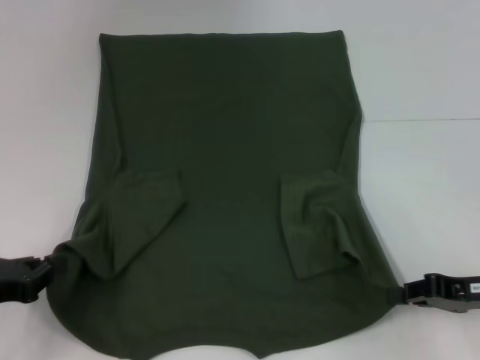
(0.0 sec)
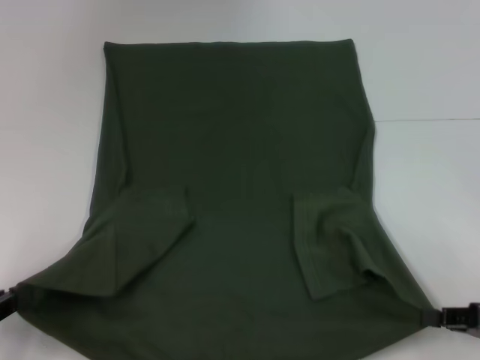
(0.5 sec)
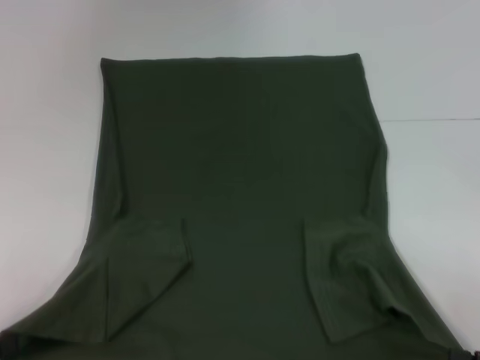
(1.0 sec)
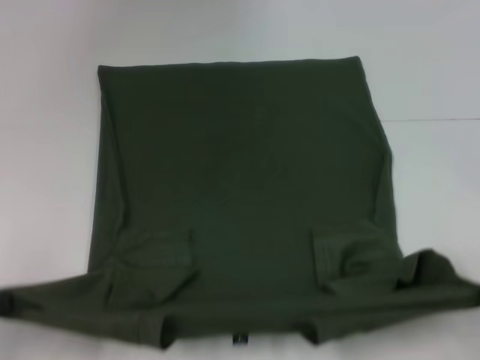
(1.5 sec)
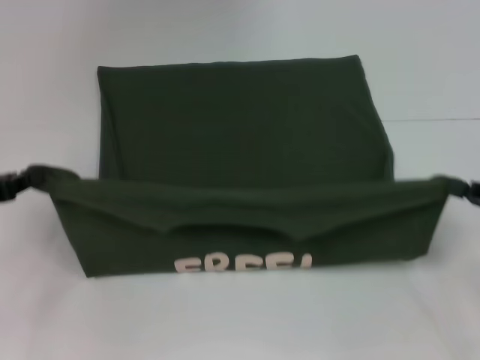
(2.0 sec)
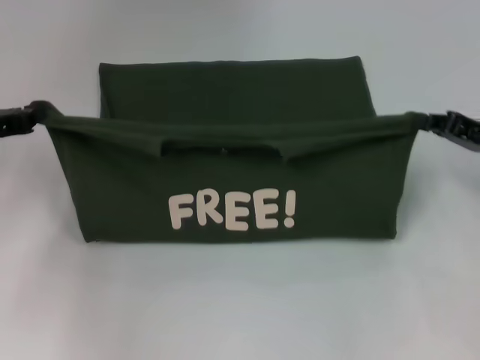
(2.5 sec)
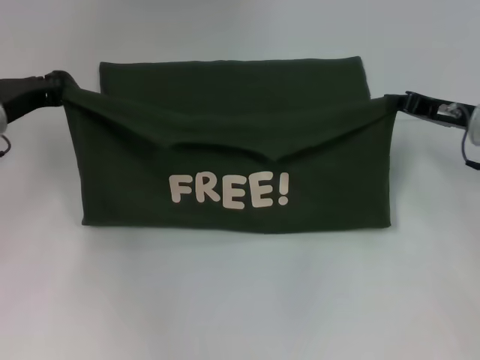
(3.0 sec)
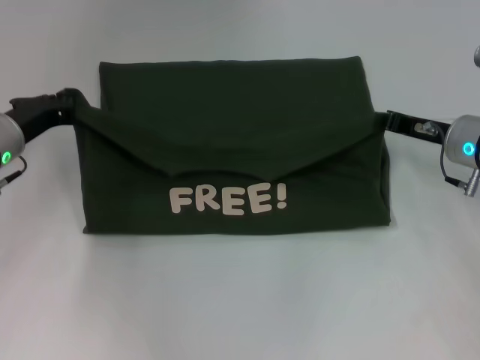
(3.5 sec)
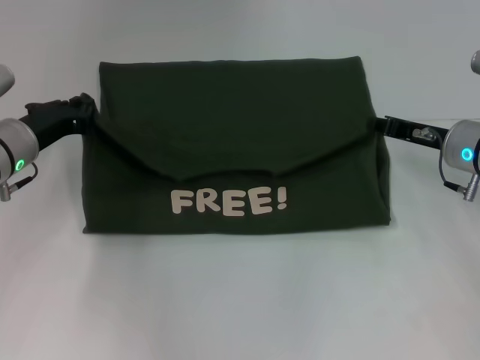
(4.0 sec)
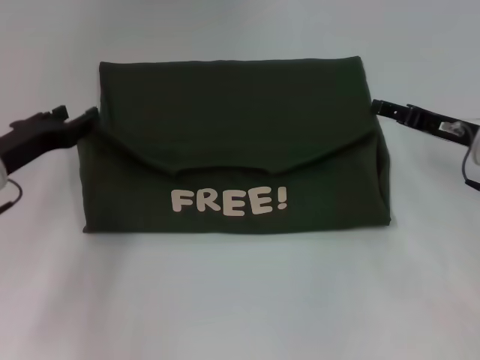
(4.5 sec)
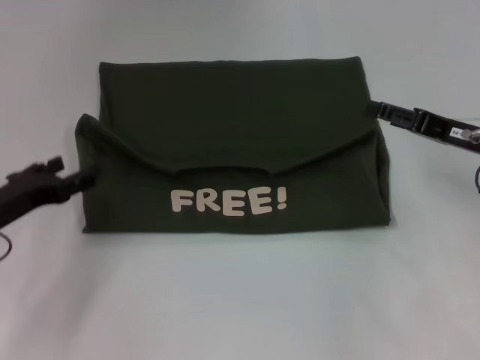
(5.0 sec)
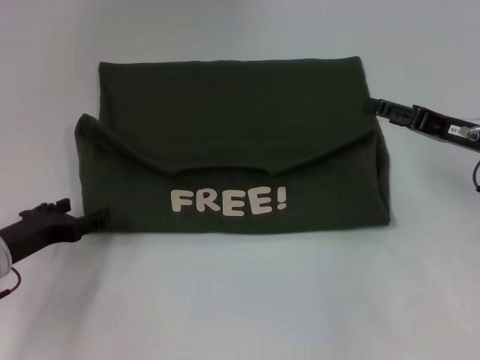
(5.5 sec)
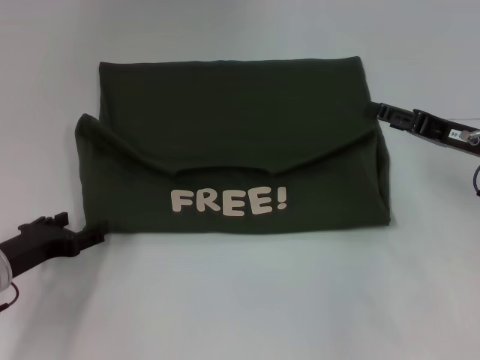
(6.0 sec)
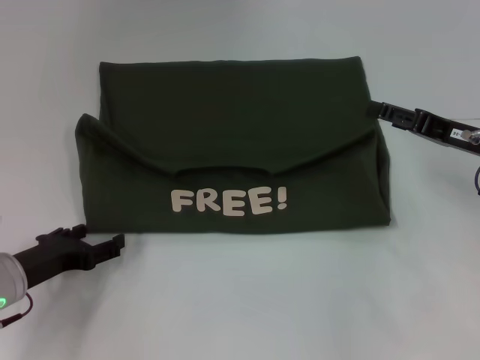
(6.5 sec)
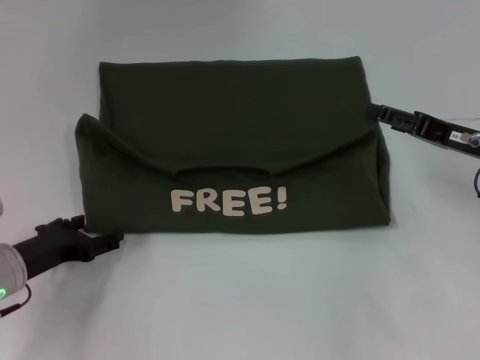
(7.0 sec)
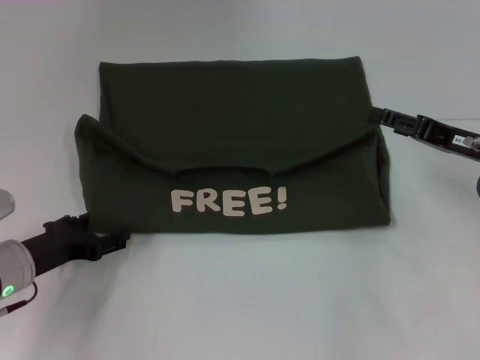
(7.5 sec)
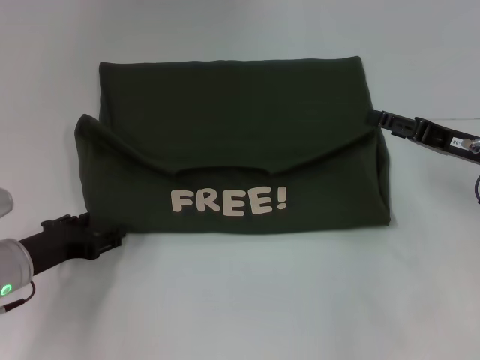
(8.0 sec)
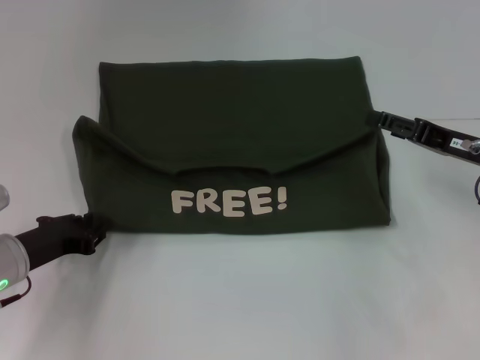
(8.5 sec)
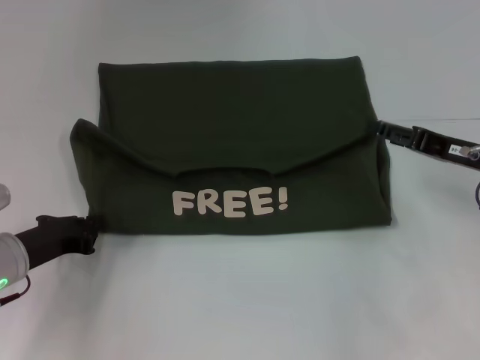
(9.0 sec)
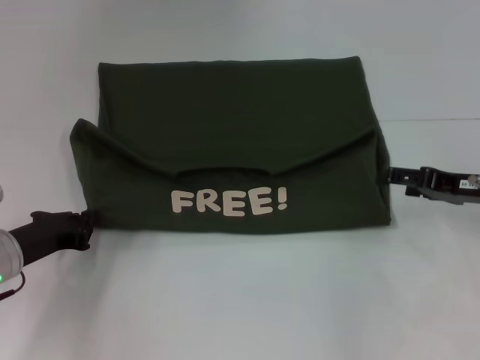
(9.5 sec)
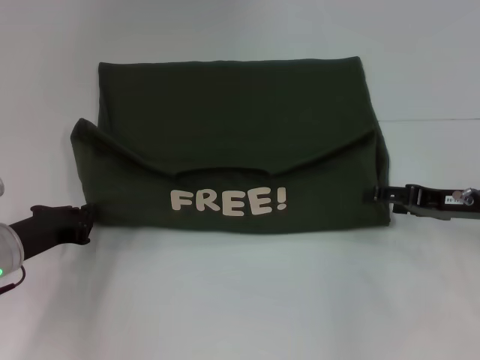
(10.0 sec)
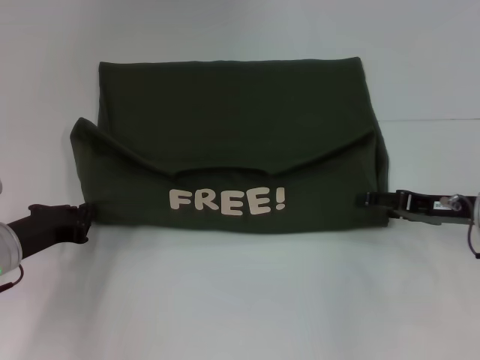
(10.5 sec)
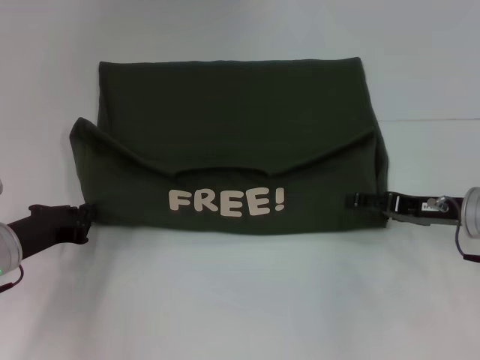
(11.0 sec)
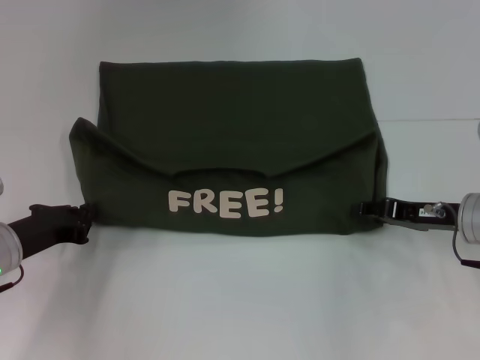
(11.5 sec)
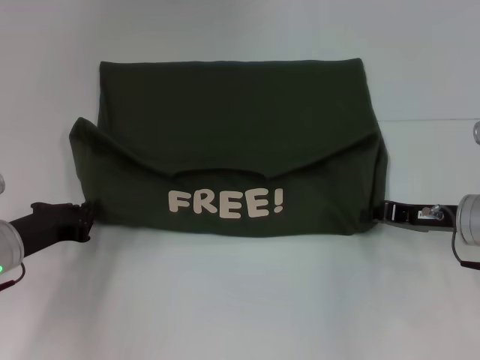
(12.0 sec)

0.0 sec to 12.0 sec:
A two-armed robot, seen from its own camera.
Step, 0.0 sec to 4.0 sec: Fold the clothes with your left hand.
Step, 0.0 sec to 4.0 sec: Fold the clothes with your right hand.
0.0 sec to 2.0 sec: The right gripper goes approximately 5 cm to the right, and goes backward and returns, roughly 10 cm each way. Meanwhile the left gripper travels forward by about 5 cm.
2.0 sec to 4.0 sec: The left gripper shifts some 15 cm forward and to the right. Meanwhile the right gripper is displaced forward and to the left by roughly 15 cm.
4.0 sec to 6.0 sec: The left gripper travels backward and downward by some 15 cm, and opens up; the right gripper moves approximately 5 cm, and opens.
6.0 sec to 8.0 sec: There are only small adjustments of the grippers.
8.0 sec to 10.0 sec: The left gripper closes up.
10.0 sec to 12.0 sec: The right gripper closes.

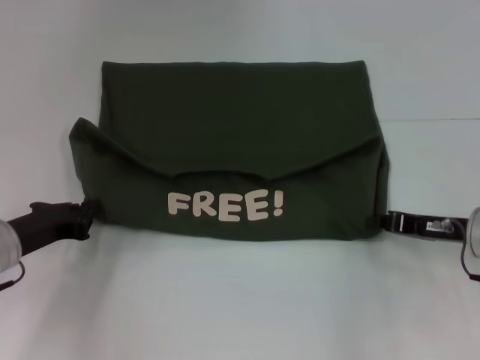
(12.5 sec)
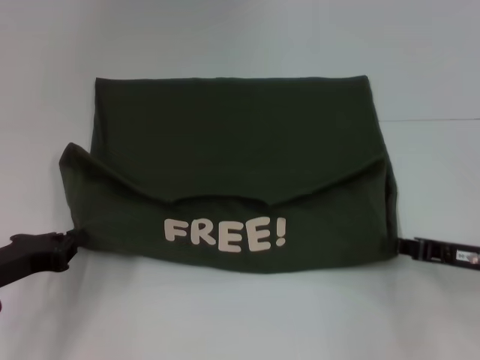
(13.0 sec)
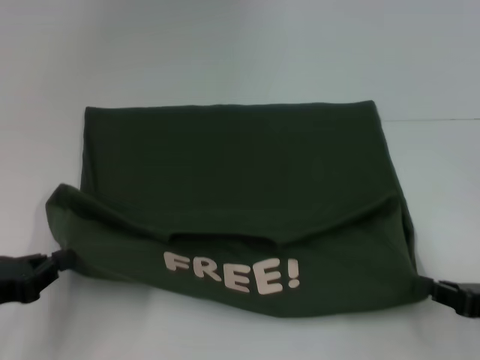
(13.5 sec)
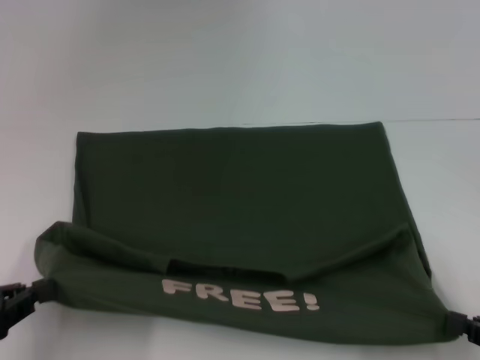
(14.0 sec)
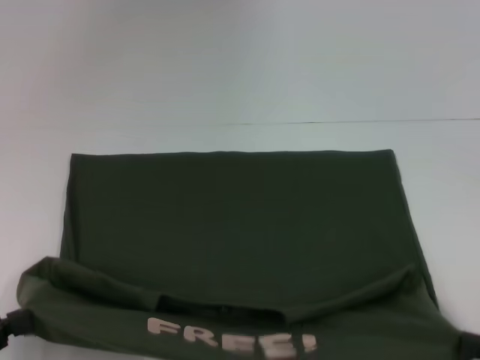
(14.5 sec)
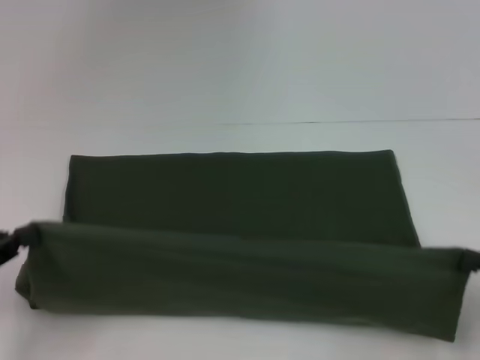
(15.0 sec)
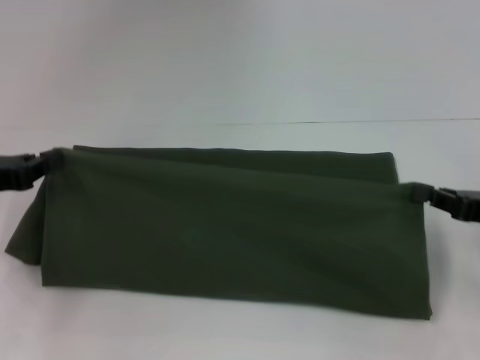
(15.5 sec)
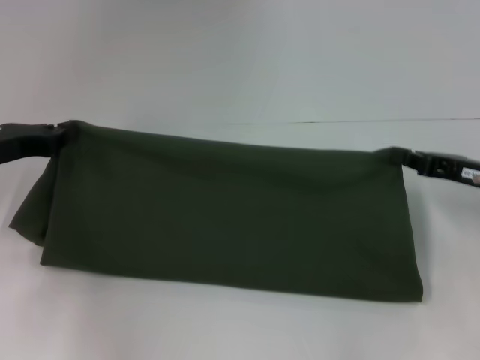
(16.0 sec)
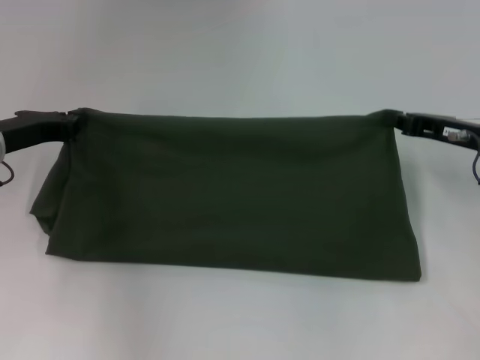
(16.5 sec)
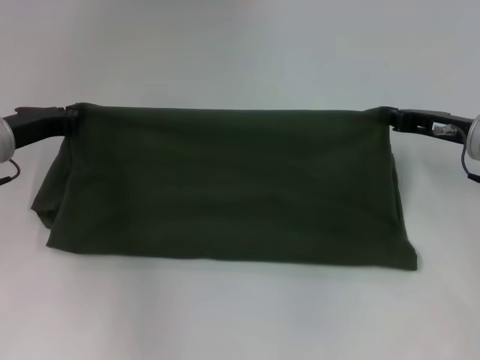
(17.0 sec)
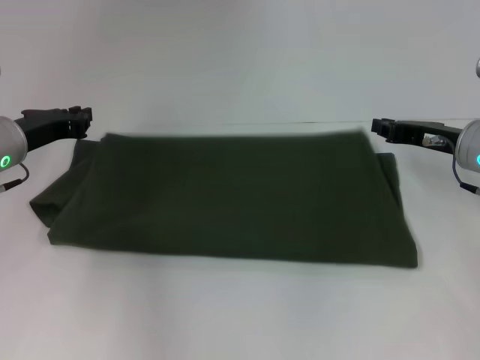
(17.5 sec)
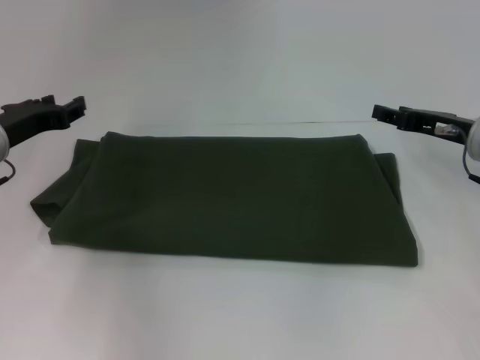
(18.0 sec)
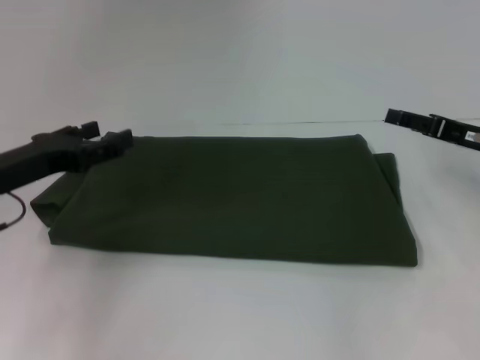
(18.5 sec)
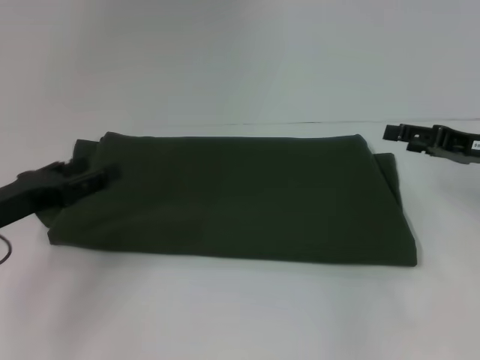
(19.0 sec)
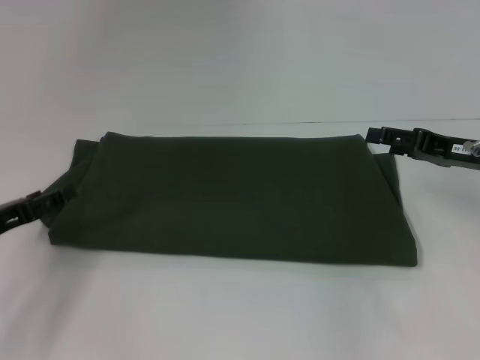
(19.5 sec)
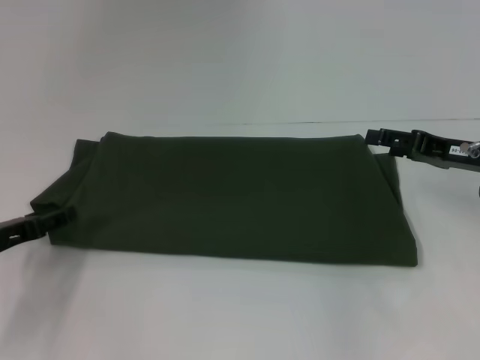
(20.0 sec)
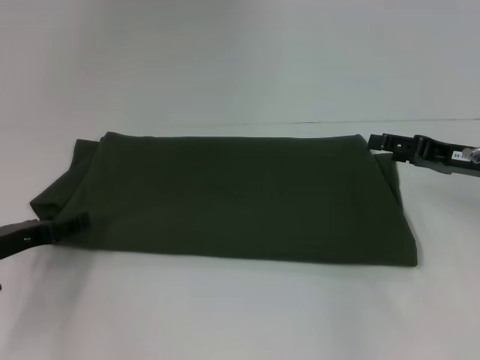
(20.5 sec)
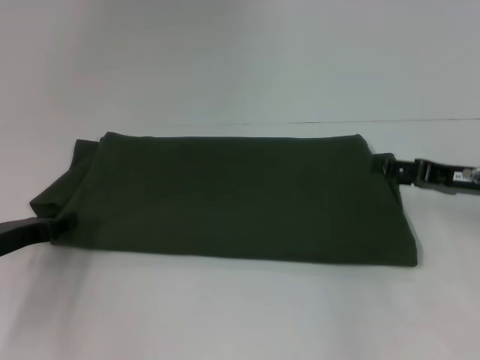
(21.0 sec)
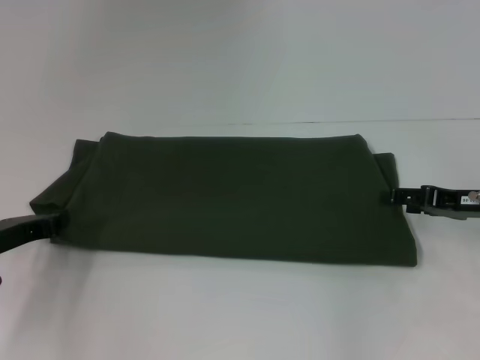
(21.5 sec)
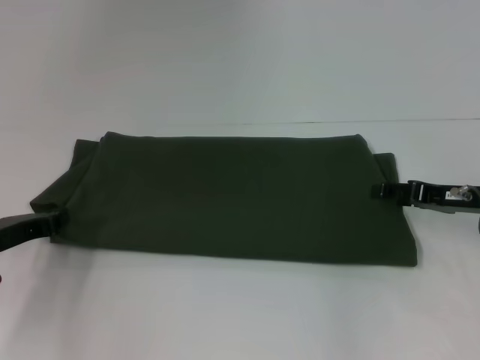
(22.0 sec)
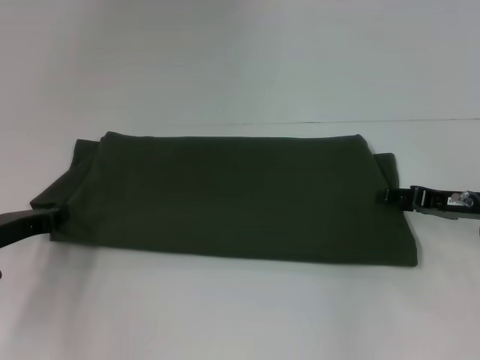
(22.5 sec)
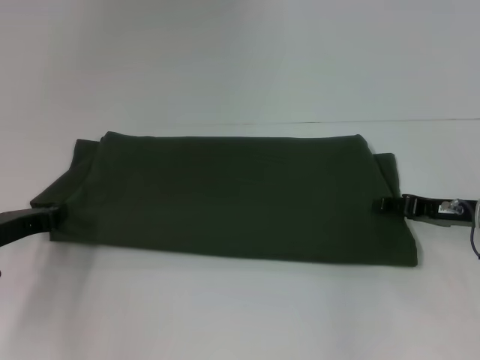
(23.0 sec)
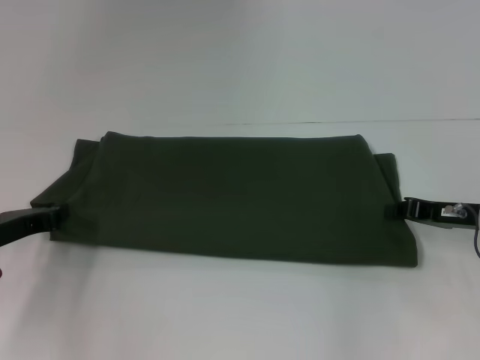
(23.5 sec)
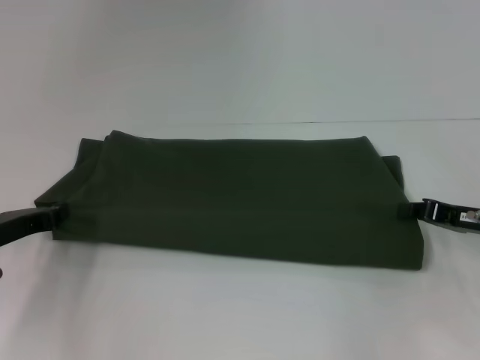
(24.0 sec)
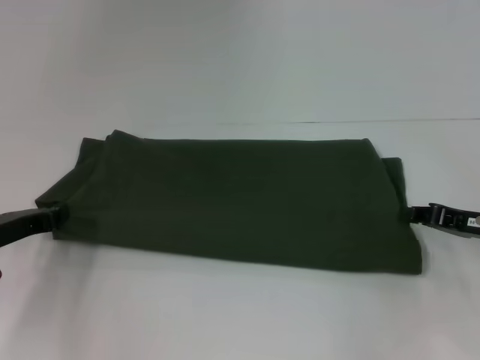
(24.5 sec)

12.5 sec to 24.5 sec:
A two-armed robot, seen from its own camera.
Step, 14.0 sec to 17.5 sec: Fold the clothes with your right hand.
12.5 sec to 14.5 sec: The right gripper is displaced backward and to the right by some 20 cm. Meanwhile the left gripper travels backward and to the left by some 20 cm.
14.5 sec to 16.5 sec: The two grippers go about 25 cm forward.
16.5 sec to 18.5 sec: The left gripper is displaced backward by some 5 cm, and opens. The right gripper opens up.
18.5 sec to 20.5 sec: The left gripper moves downward, about 10 cm.
20.5 sec to 22.5 sec: The left gripper closes its fingers.
22.5 sec to 24.5 sec: The right gripper closes up.

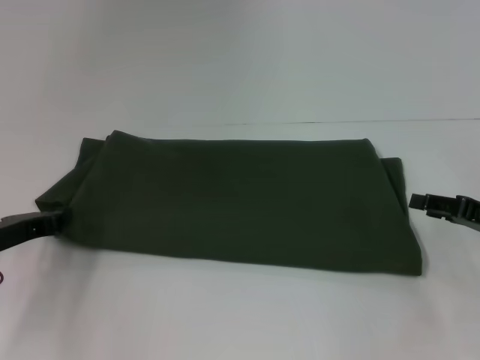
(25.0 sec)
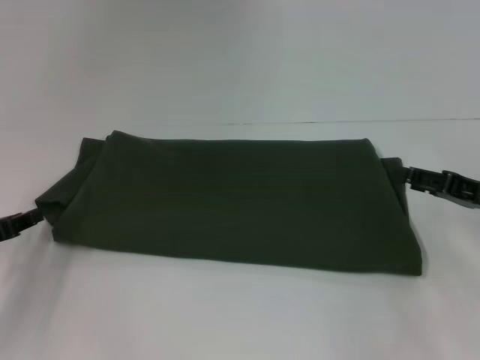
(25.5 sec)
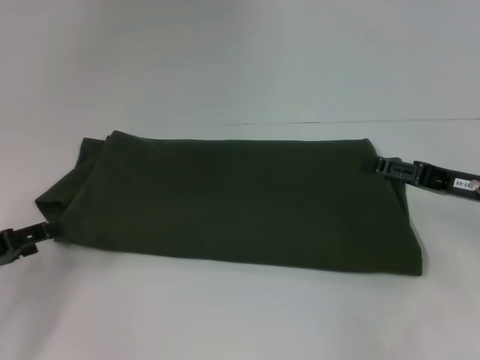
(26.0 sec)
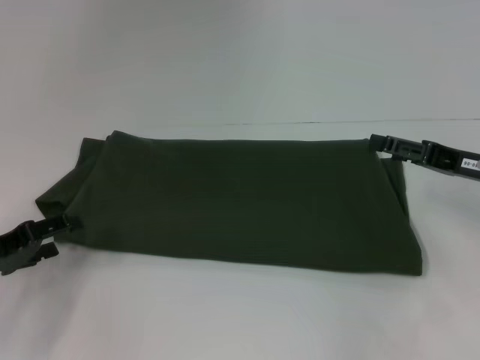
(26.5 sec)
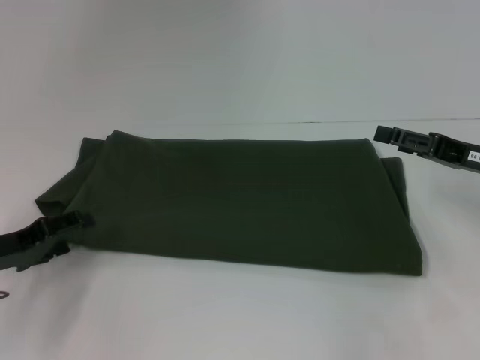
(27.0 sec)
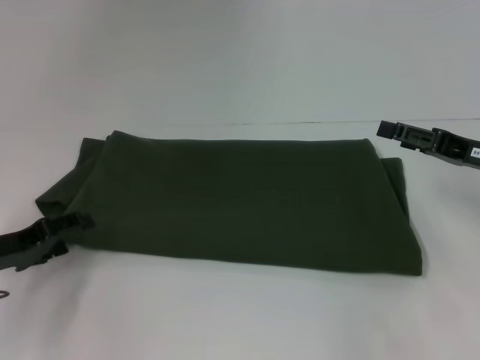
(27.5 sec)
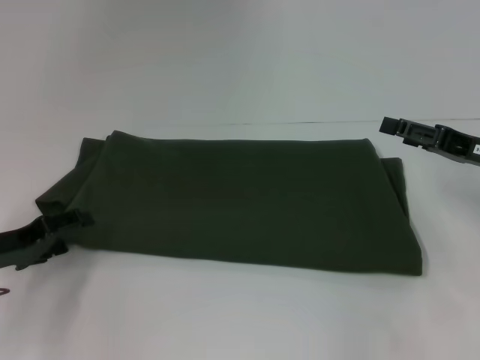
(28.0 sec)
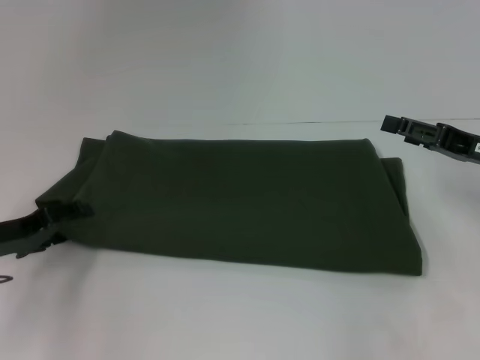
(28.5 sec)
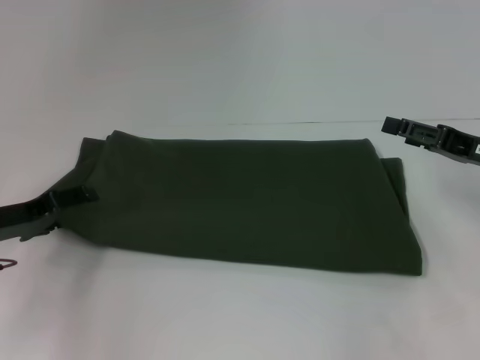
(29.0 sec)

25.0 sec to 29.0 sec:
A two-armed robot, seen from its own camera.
25.0 sec to 27.0 sec: The right gripper moves some 5 cm, and opens, while the left gripper opens.
27.0 sec to 29.0 sec: There are only small adjustments of the grippers.
